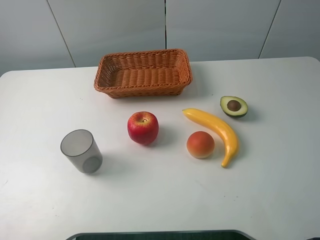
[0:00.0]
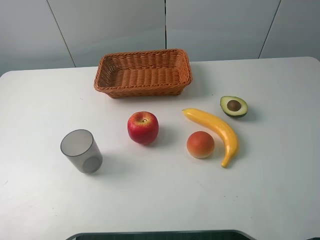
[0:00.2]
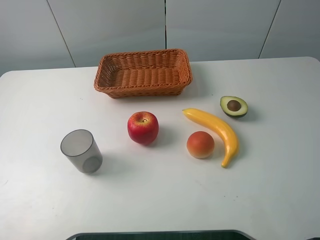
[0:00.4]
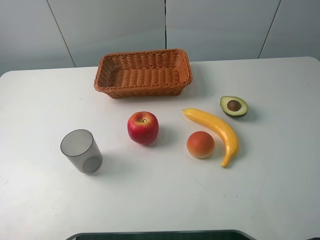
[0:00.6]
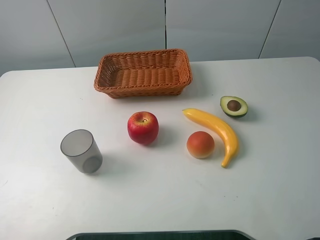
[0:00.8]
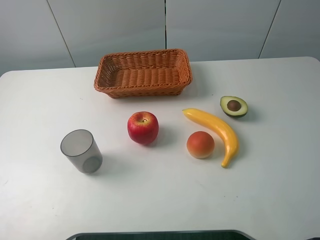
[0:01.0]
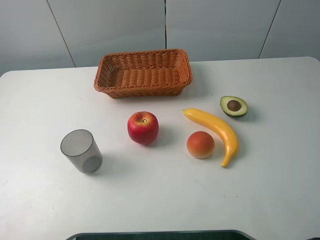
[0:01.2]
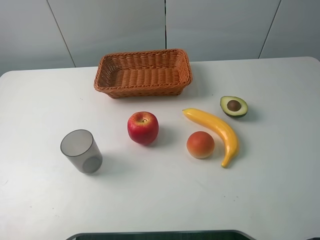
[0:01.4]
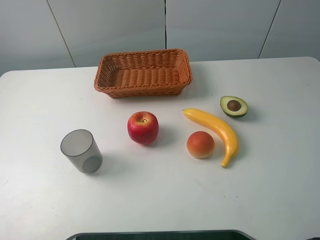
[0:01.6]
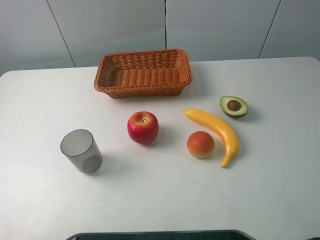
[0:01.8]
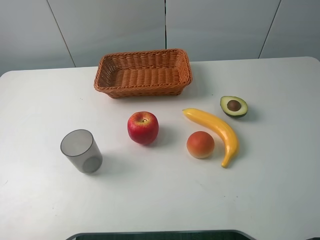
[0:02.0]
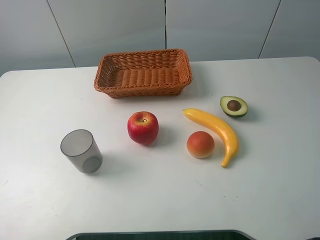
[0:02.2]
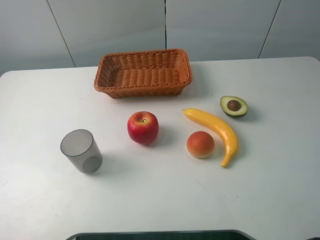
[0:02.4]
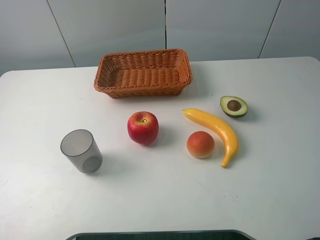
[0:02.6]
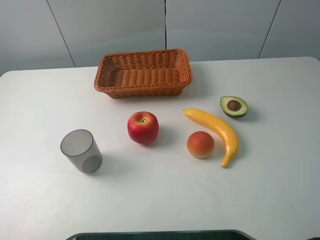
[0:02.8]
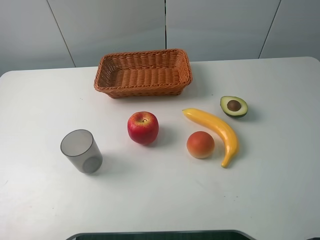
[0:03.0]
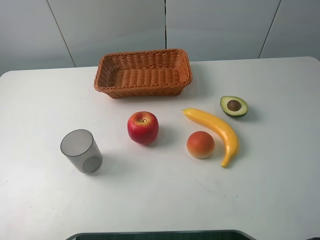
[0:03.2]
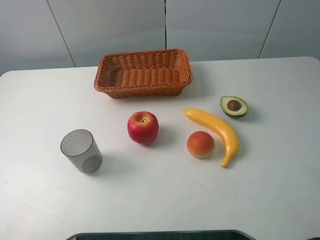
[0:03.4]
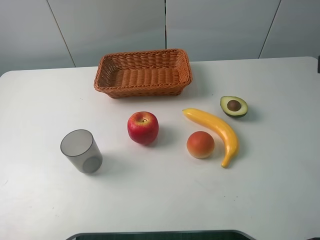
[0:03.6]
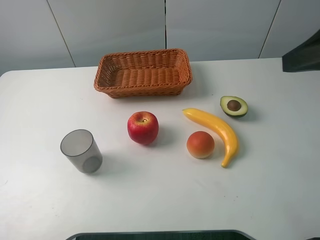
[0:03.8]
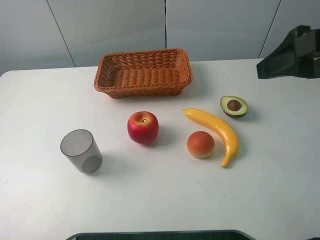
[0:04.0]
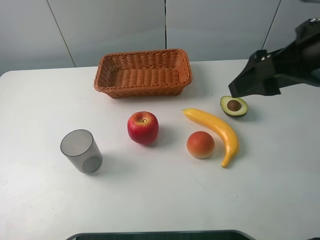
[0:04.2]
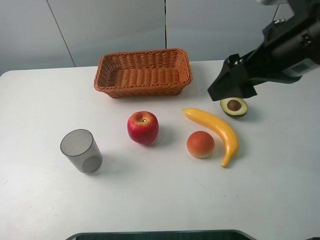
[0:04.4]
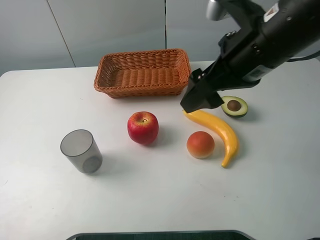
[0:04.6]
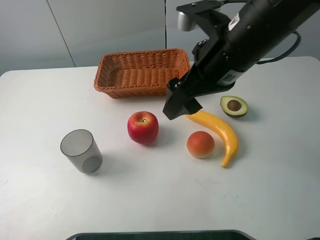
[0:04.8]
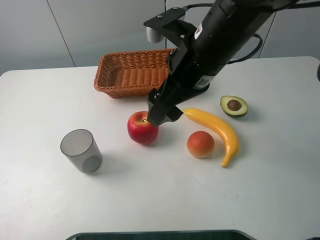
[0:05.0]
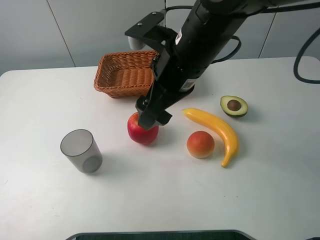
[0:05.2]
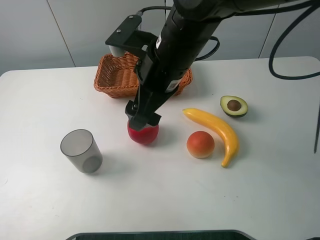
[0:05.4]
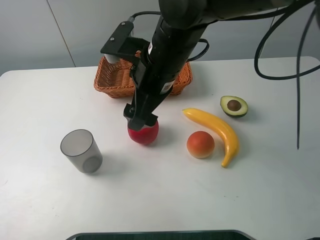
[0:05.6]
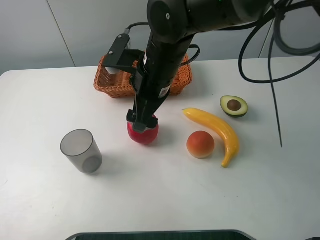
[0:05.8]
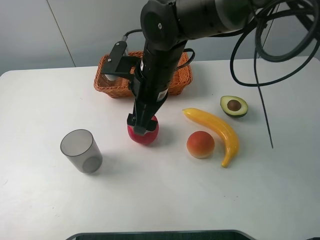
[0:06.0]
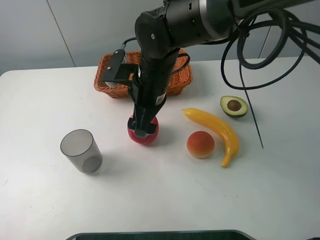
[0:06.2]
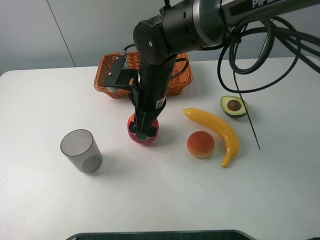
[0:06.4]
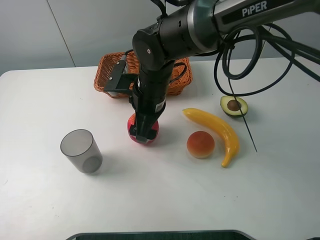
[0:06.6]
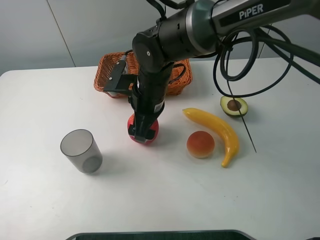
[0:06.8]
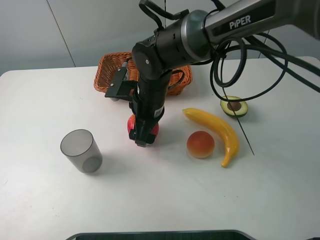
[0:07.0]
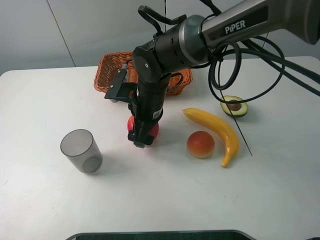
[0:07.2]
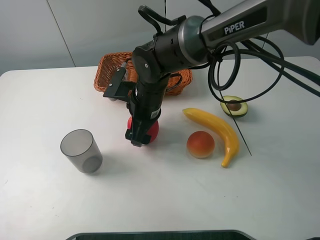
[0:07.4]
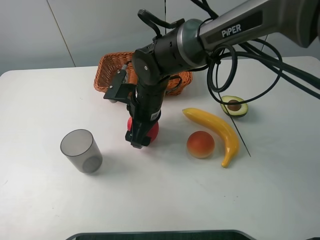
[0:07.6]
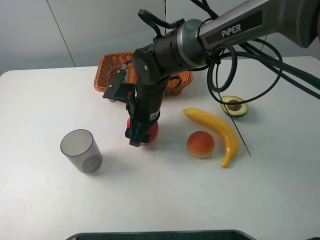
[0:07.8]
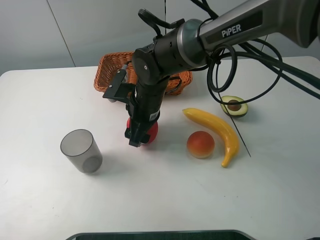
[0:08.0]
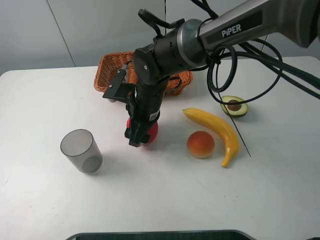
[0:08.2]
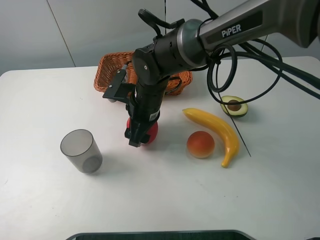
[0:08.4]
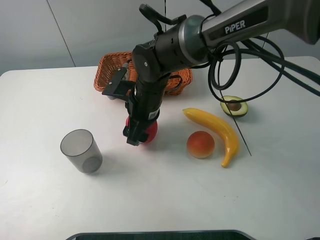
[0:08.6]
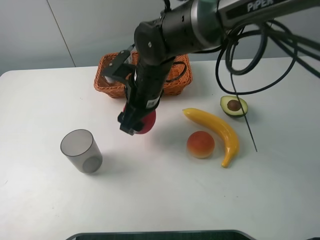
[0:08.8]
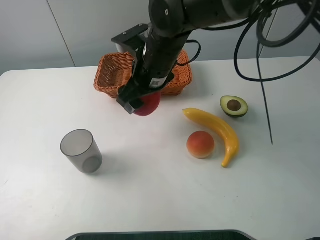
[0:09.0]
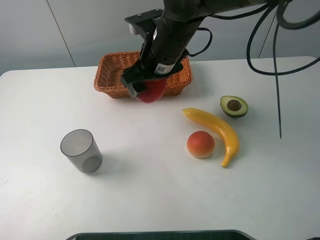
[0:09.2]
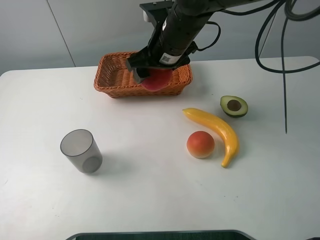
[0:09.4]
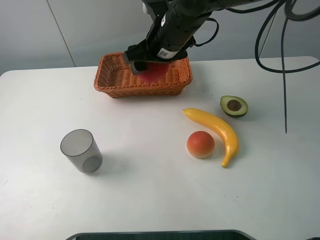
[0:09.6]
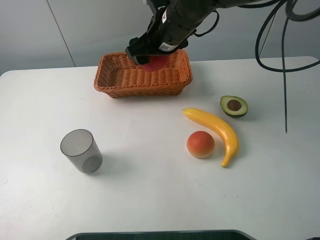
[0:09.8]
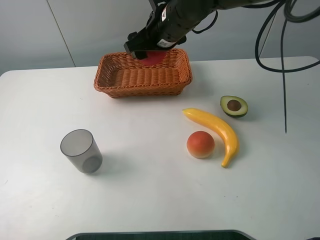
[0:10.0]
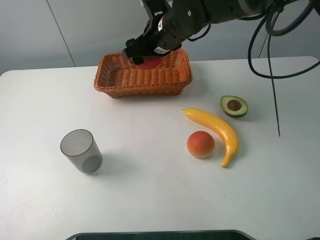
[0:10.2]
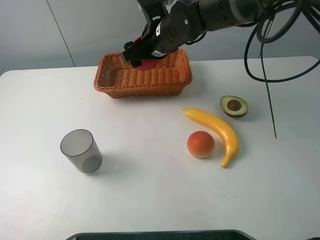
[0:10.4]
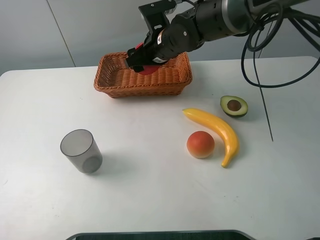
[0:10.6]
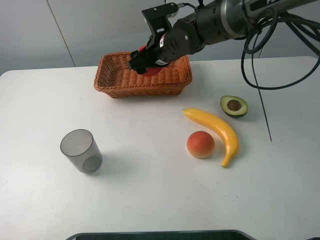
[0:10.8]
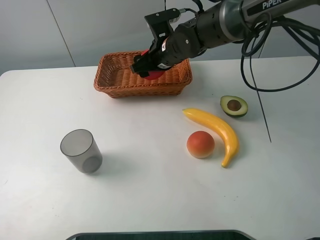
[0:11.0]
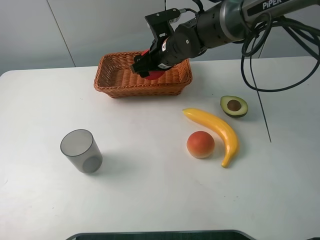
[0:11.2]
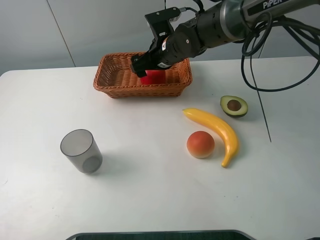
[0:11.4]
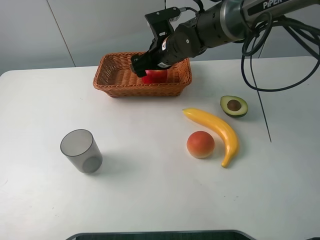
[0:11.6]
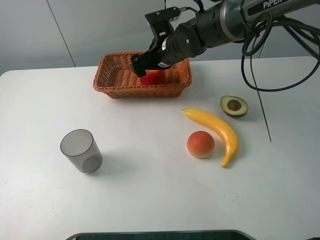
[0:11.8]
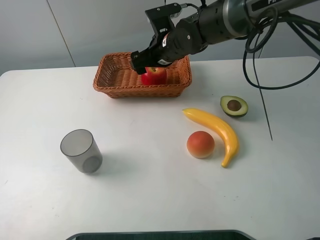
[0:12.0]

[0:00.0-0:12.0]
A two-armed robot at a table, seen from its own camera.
Task of the whole recording: randomly pick up an item from the table and put it in the basket.
Step, 0:00.0 to 0:08.0: Grasp the apple with the right gripper.
0:03.0 to 0:04.4: The right gripper travels forward, to the left and downward by roughly 20 cm.
0:04.4 to 0:06.0: The right gripper goes roughly 20 cm to the left, downward and forward.
0:06.0 to 0:07.6: The right gripper goes roughly 5 cm downward.
0:07.6 to 0:09.0: The right gripper shifts approximately 10 cm upward, and closes.
0:09.0 to 0:10.4: The right gripper heads forward, covering some 5 cm.
0:10.4 to 0:12.0: The right gripper opens its fingers.

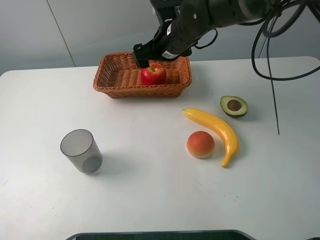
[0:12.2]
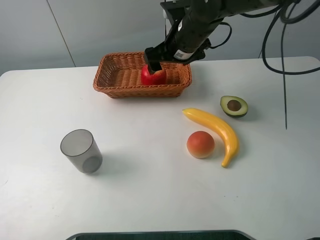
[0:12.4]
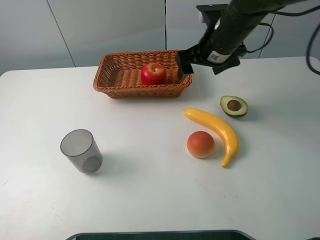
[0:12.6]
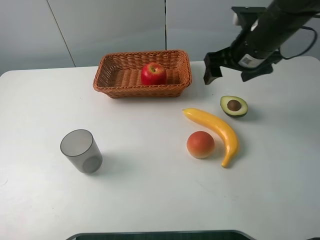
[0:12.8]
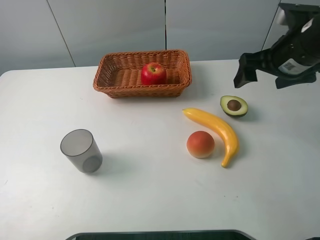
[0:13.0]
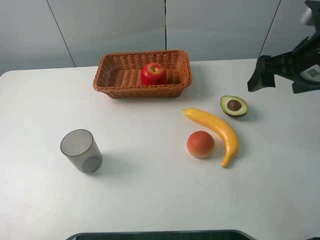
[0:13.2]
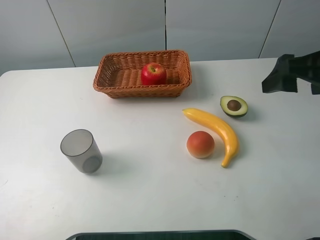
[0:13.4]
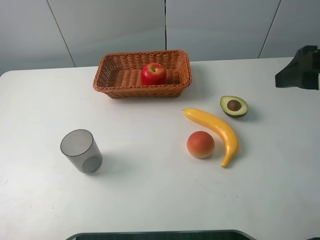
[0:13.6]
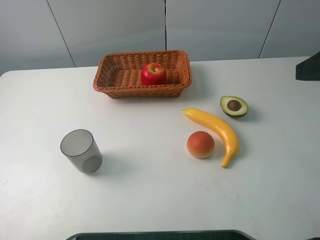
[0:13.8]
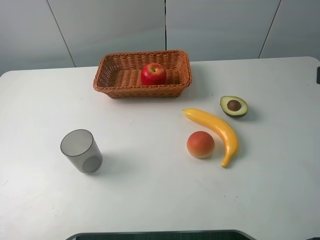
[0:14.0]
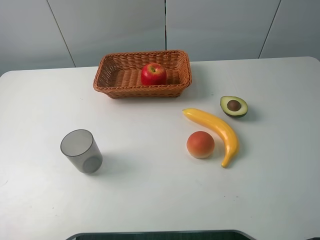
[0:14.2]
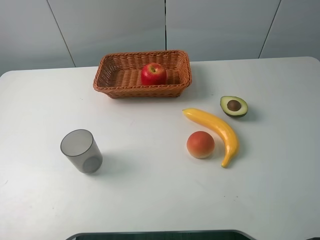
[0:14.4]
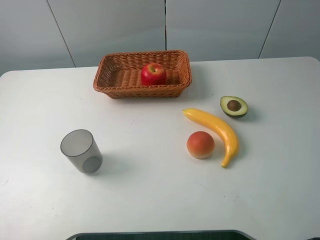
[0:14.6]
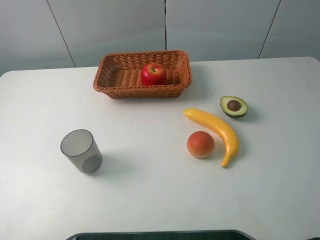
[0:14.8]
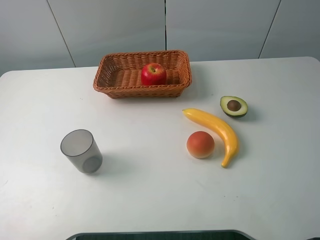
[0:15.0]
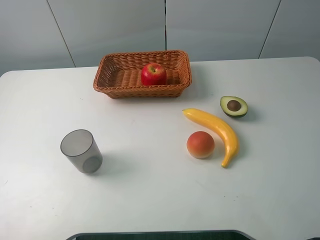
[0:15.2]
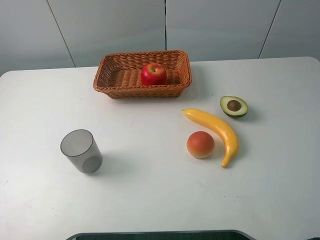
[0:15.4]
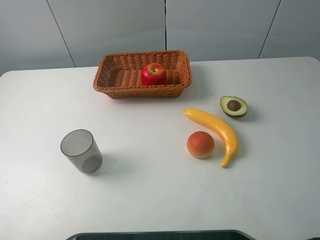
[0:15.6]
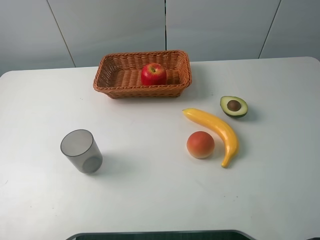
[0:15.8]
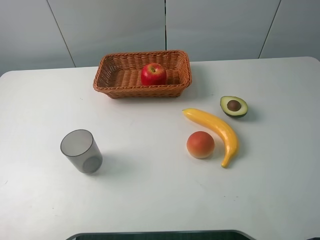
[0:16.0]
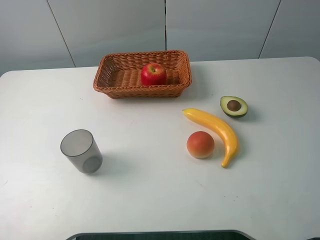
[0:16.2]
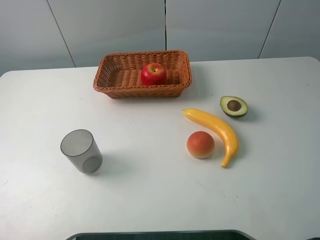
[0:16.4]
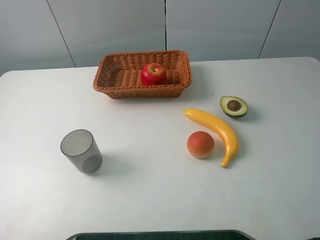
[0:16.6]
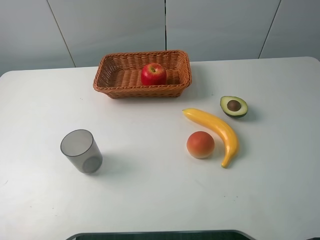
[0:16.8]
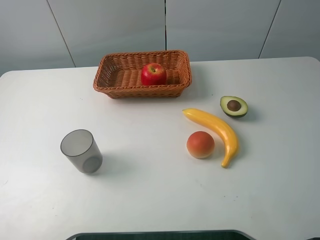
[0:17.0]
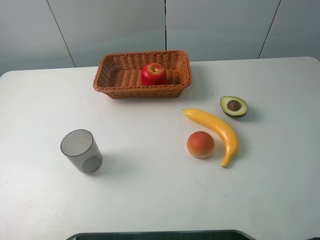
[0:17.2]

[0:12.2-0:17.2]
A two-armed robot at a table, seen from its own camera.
Task of the whole recording: randomly pick up an item from the table and put it in the basket.
0:12.2 to 0:13.8: The right gripper is displaced backward, to the right and upward by roughly 35 cm.
0:13.8 to 0:15.6: The right gripper is displaced backward by about 15 cm.

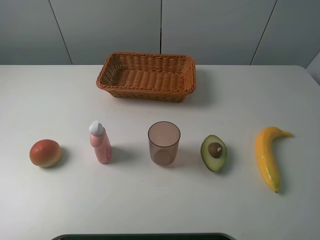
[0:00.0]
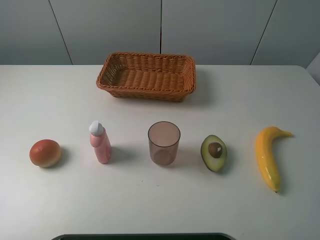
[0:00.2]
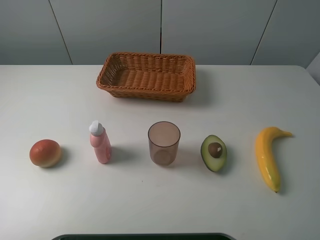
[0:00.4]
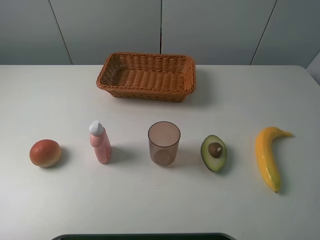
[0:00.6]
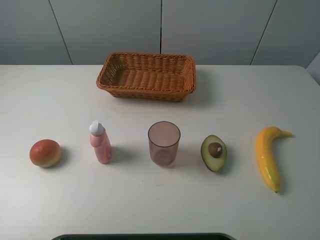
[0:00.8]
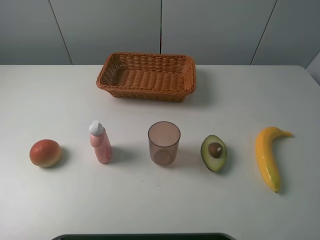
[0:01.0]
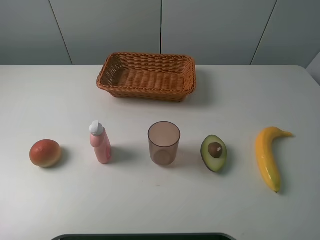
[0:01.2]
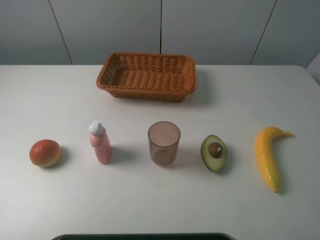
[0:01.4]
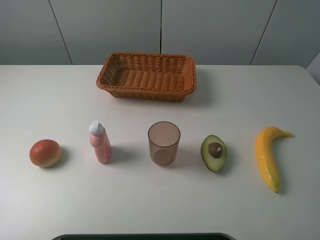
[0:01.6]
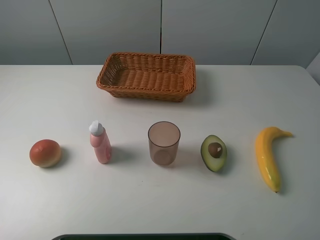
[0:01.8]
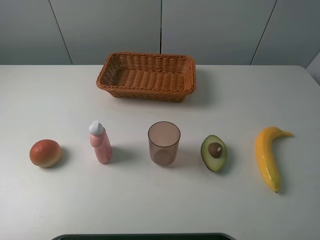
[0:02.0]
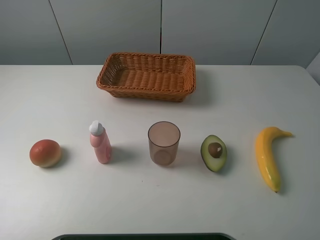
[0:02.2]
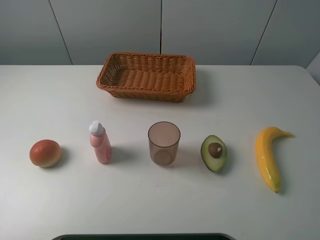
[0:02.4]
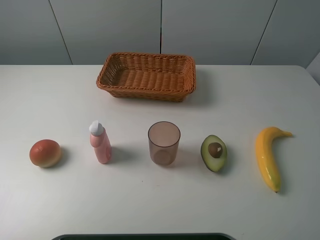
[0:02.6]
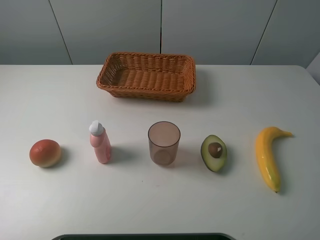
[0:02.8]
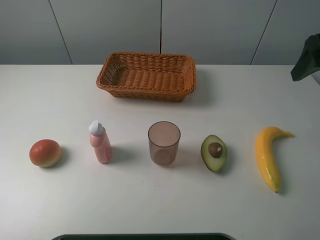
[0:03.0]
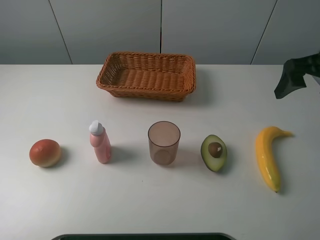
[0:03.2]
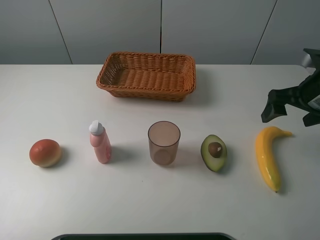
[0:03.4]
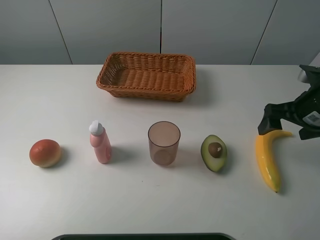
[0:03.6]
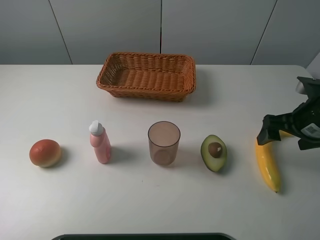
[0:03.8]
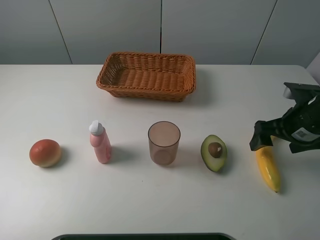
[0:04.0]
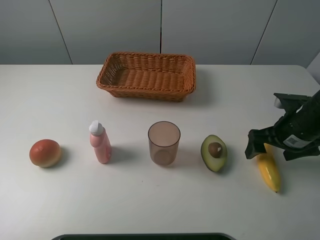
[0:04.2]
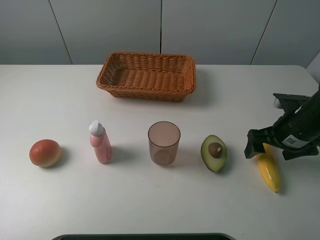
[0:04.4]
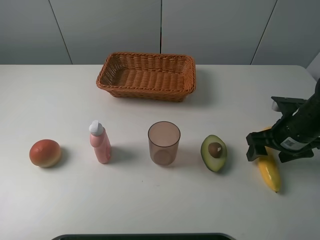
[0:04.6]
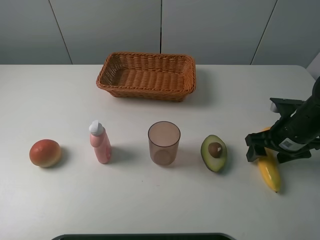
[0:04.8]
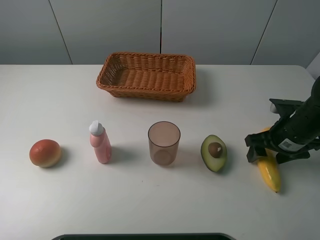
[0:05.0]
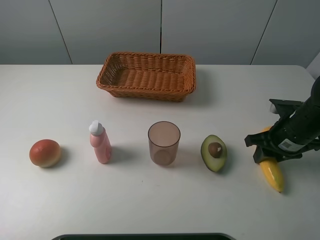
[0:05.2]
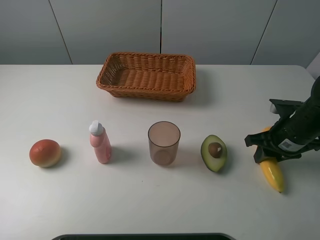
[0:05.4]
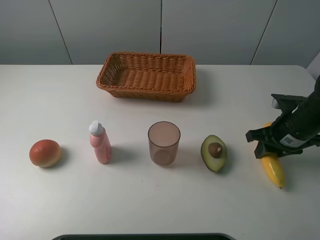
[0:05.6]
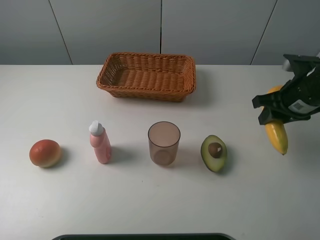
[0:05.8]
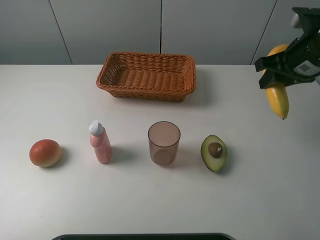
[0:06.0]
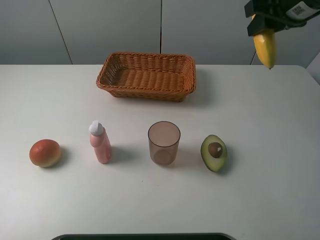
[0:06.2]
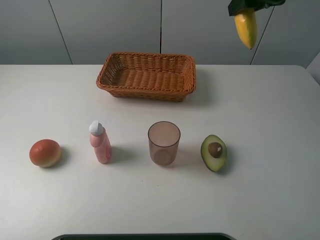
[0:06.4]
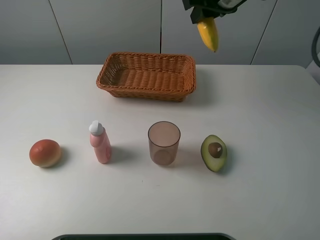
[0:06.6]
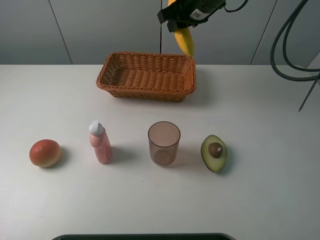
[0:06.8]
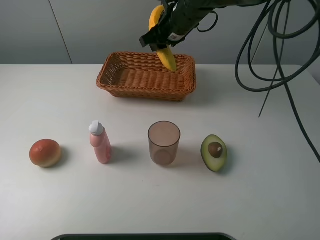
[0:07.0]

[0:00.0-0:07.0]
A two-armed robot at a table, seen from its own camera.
Task of the whole recording: randomly pick up an item from the table and put it in the basket.
Step, 0:00.0 to 0:05.2: Grasp the banana with the right gripper.
0:00.0 to 0:01.4: Both grippers stay put.
0:02.8 to 0:04.2: The right gripper heads downward, covering some 25 cm.
0:04.2 to 0:05.6: The right gripper closes.
0:05.6 to 0:07.0: The right gripper shifts about 30 cm to the left and forward.
